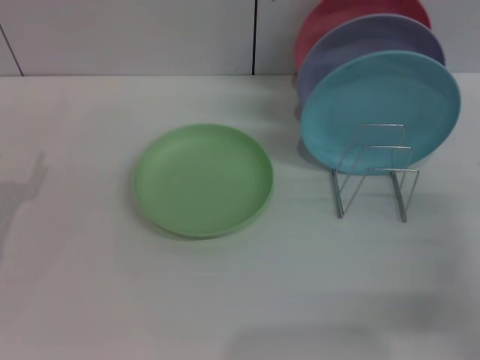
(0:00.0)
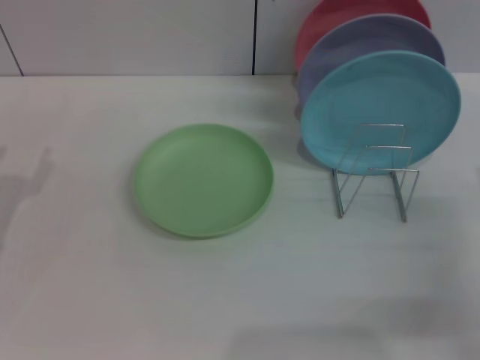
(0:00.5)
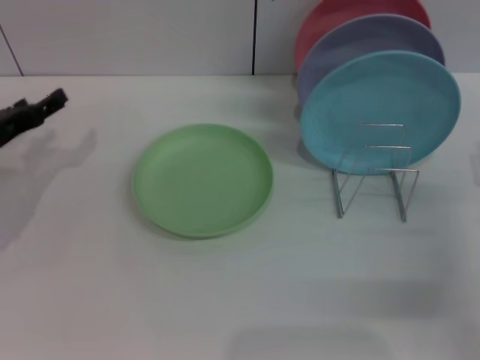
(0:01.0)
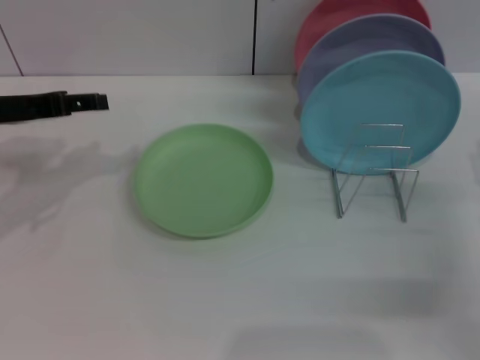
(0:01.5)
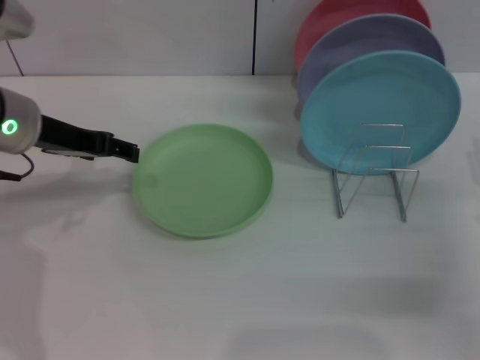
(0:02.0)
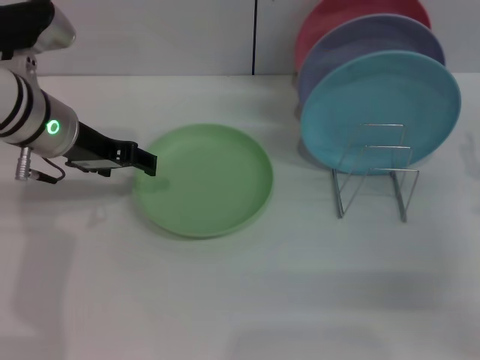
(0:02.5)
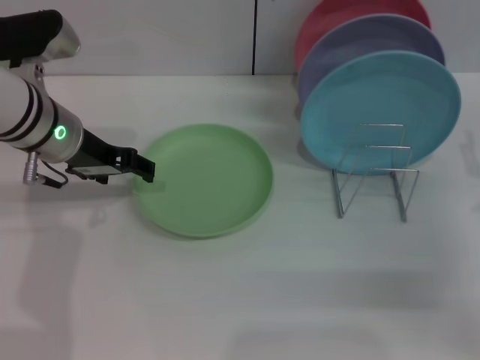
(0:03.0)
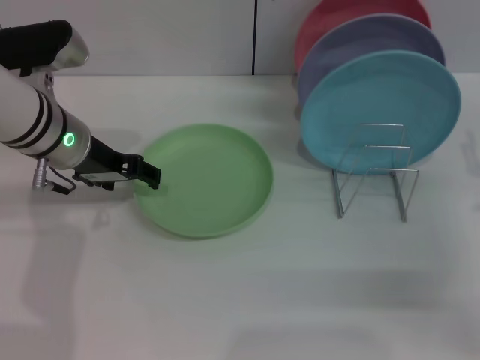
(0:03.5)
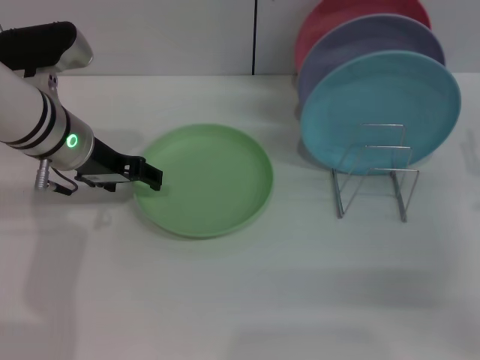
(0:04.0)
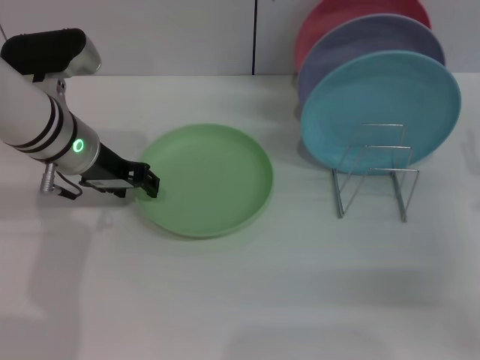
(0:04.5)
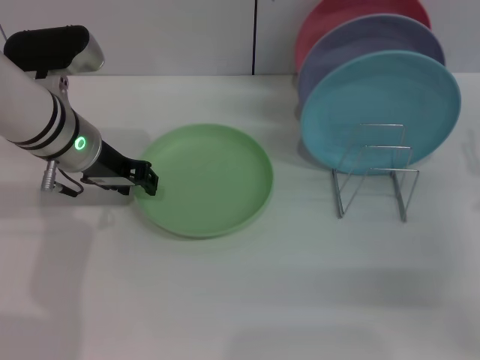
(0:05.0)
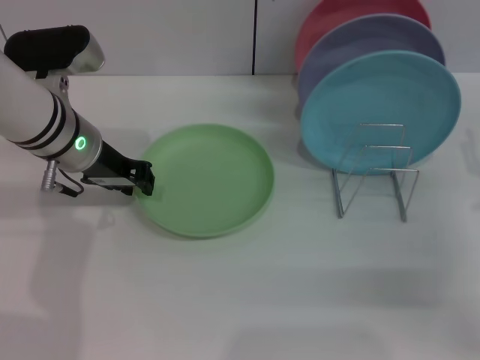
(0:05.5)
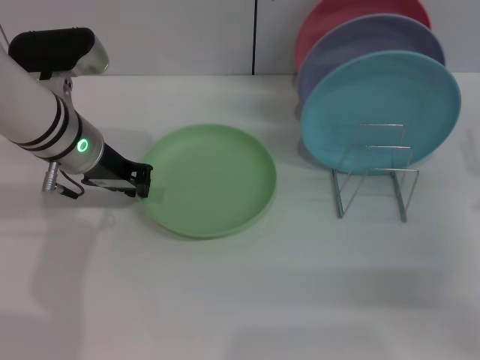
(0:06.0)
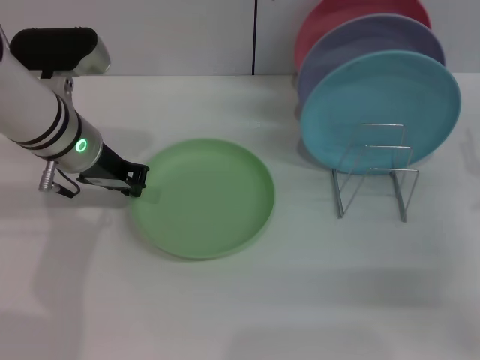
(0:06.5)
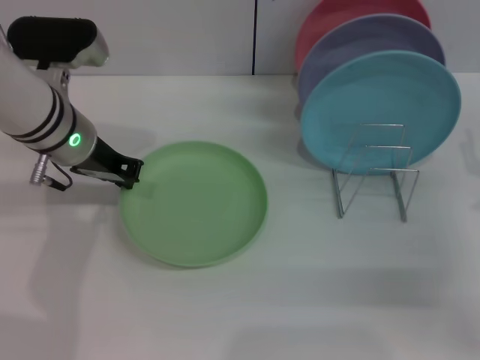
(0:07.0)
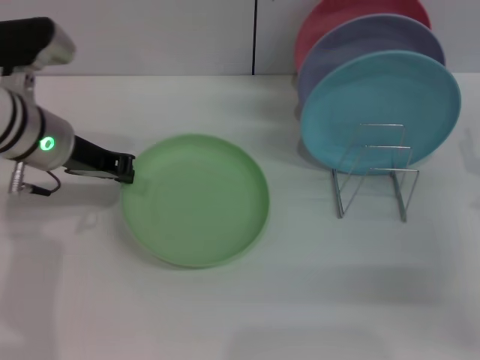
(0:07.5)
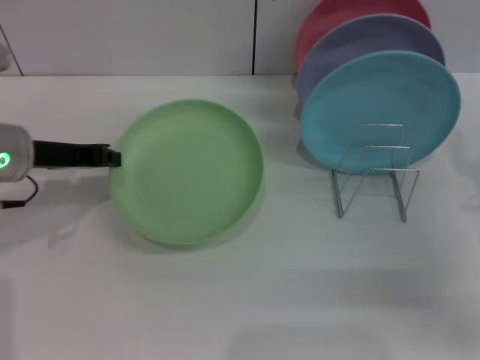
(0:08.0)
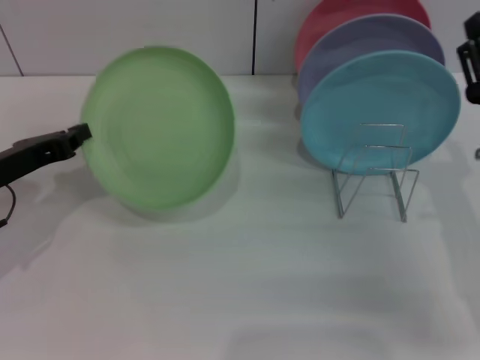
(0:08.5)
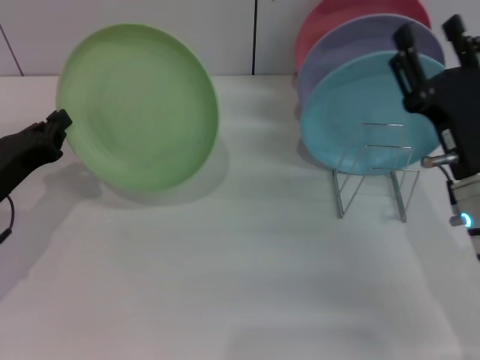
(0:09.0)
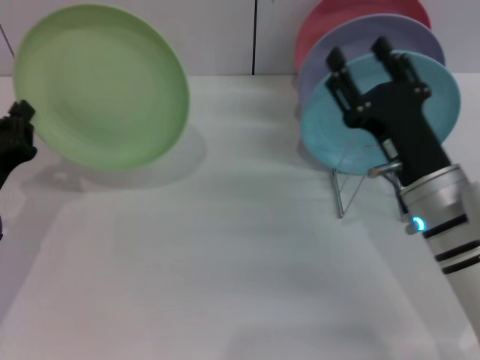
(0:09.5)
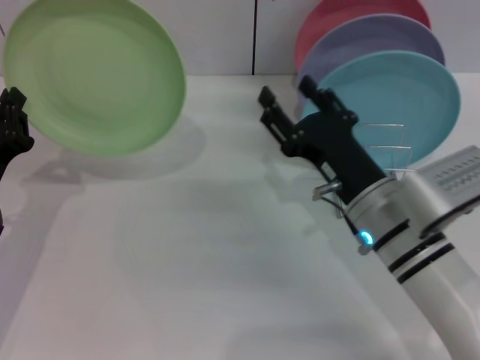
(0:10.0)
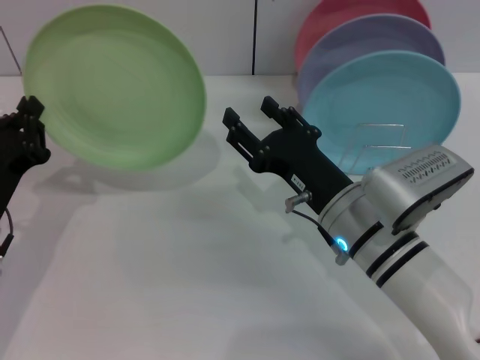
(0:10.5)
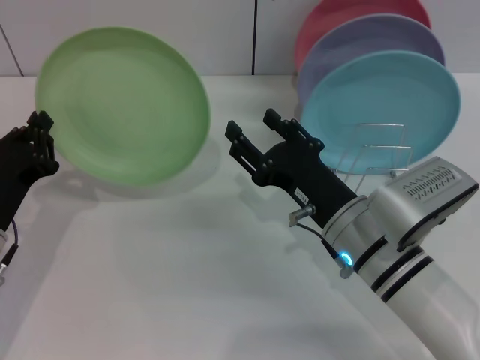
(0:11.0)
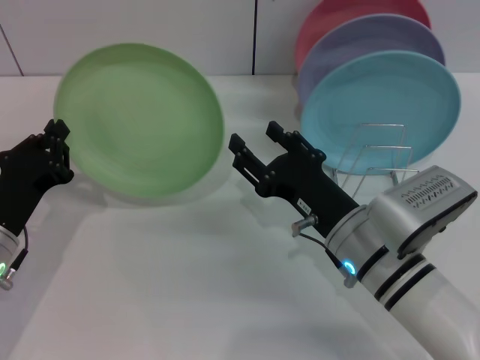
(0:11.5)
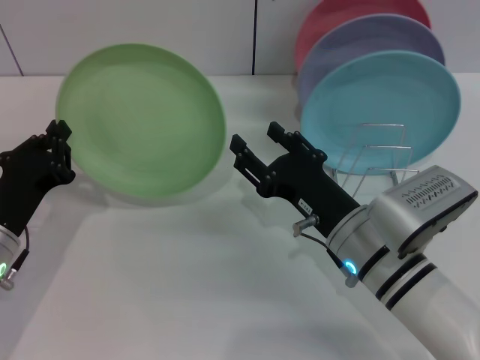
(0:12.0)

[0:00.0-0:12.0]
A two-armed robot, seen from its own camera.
Task of the whole recording: Grip the plate with one hand, pass it to the other, then set it on the shelf.
Step, 0:00.0 to 0:09.0: Pick up the plate with the left gripper.
0:00.0 to 0:02.0: The left gripper is displaced upward, forward and to the right by about 20 cm.
0:02.0 to 0:04.0: The left gripper changes place by approximately 5 cm.
0:04.0 to 0:06.0: The left gripper closes.
0:06.0 to 0:08.0: The left gripper travels to the left by about 10 cm.
0:08.0 to 0:10.0: The right gripper travels to the left by about 15 cm, while the left gripper moves downward and backward, some 10 cm.

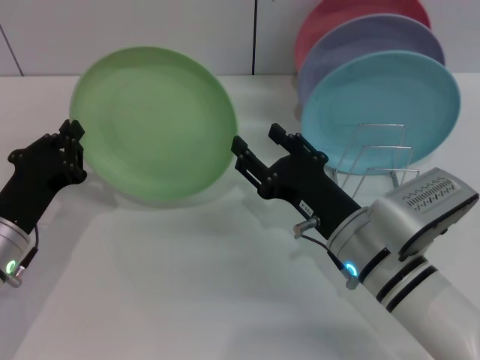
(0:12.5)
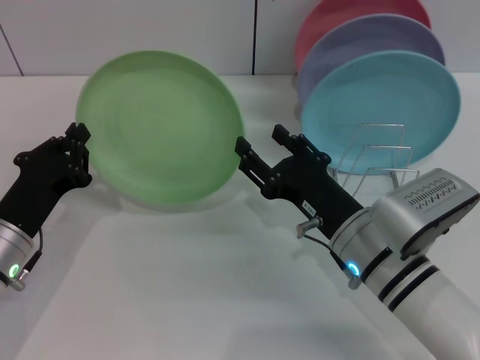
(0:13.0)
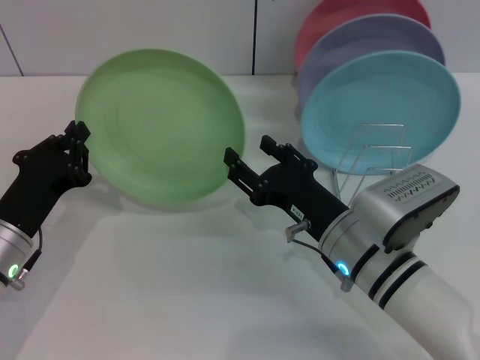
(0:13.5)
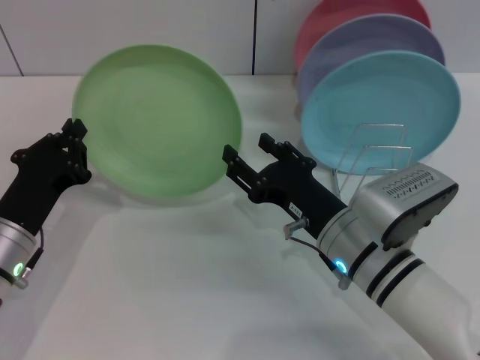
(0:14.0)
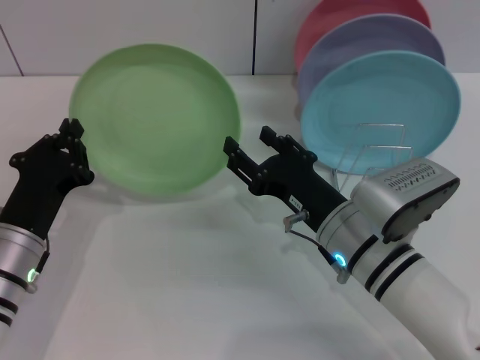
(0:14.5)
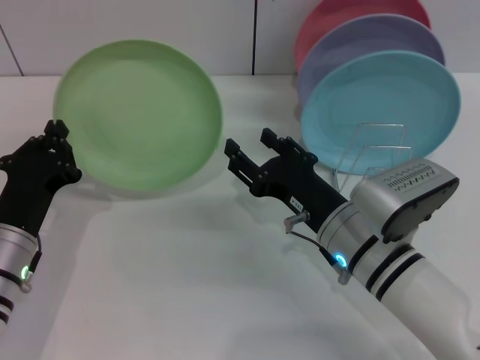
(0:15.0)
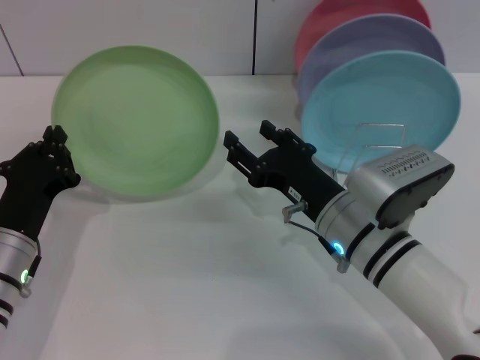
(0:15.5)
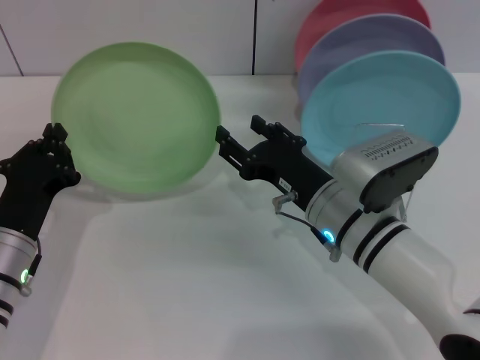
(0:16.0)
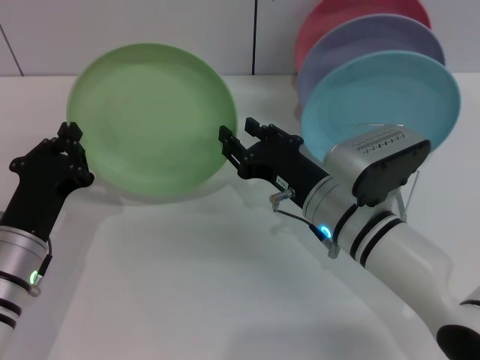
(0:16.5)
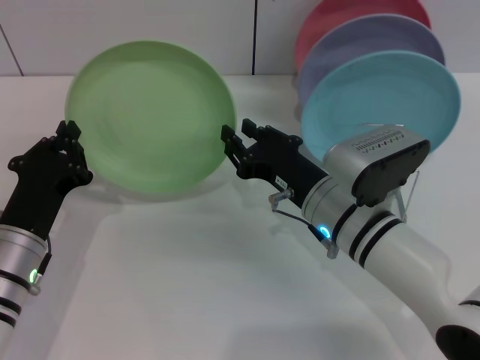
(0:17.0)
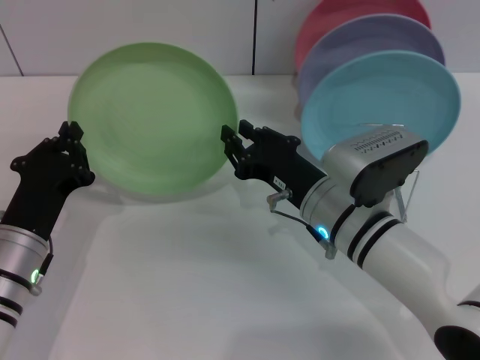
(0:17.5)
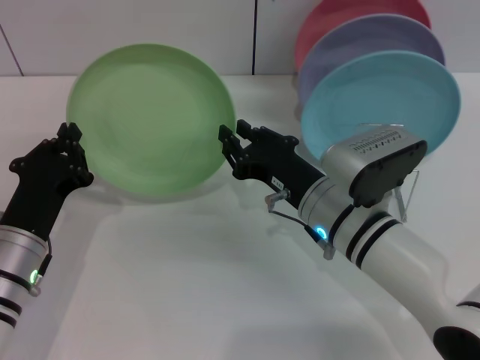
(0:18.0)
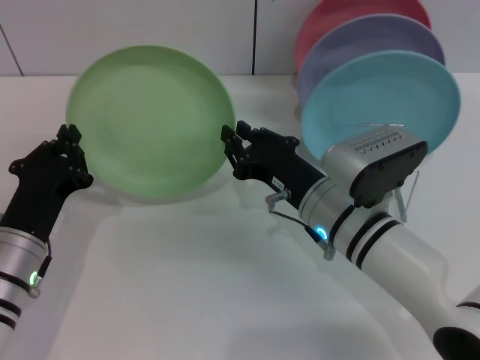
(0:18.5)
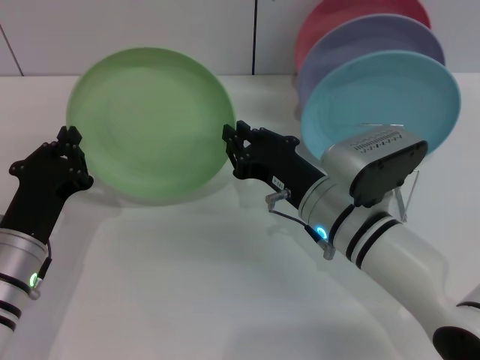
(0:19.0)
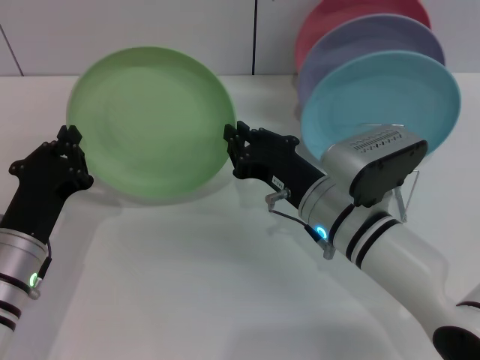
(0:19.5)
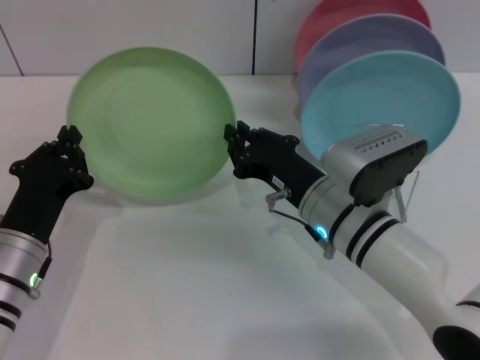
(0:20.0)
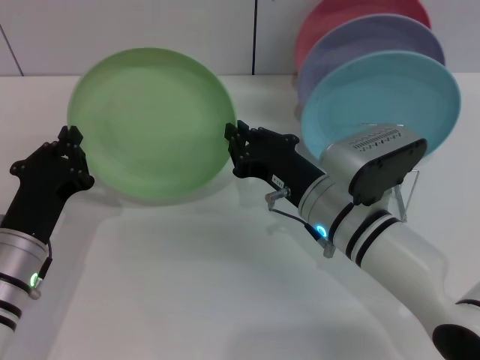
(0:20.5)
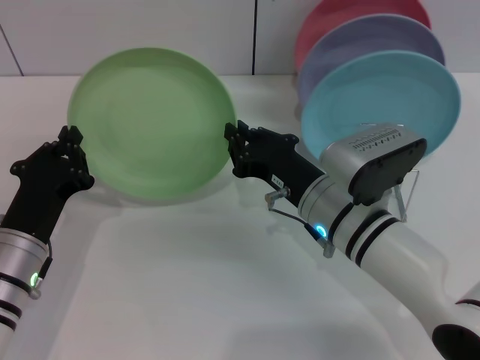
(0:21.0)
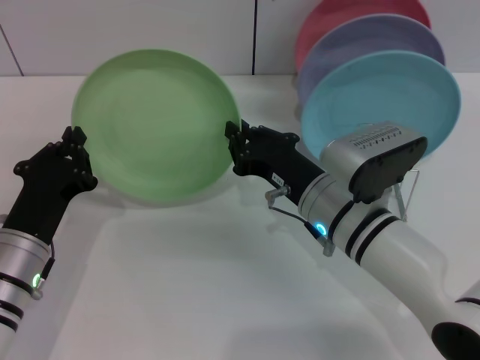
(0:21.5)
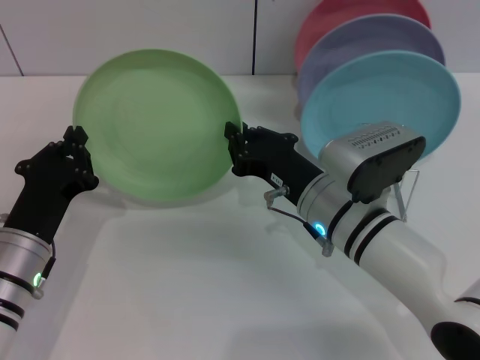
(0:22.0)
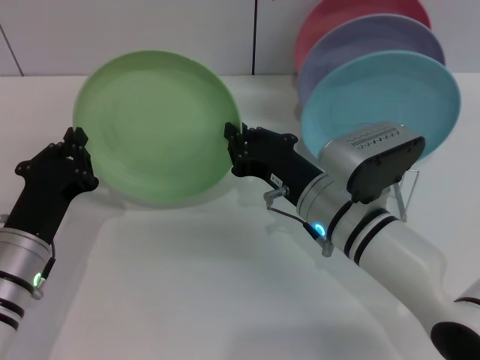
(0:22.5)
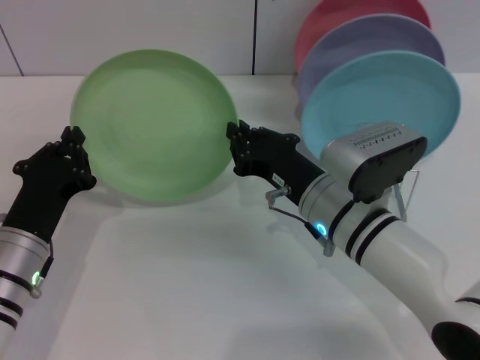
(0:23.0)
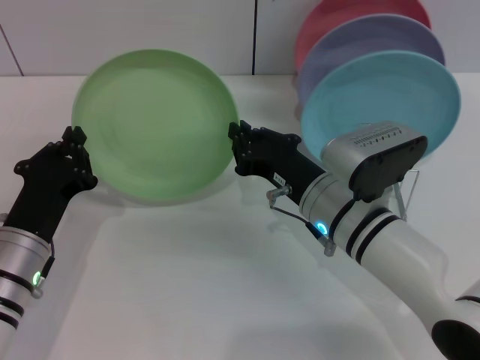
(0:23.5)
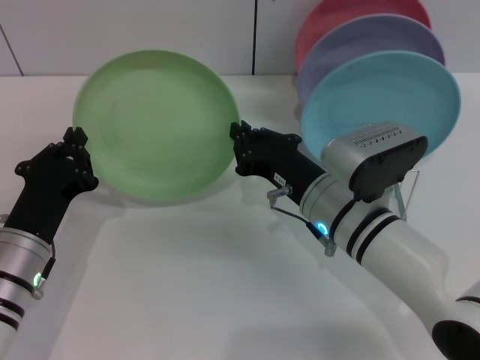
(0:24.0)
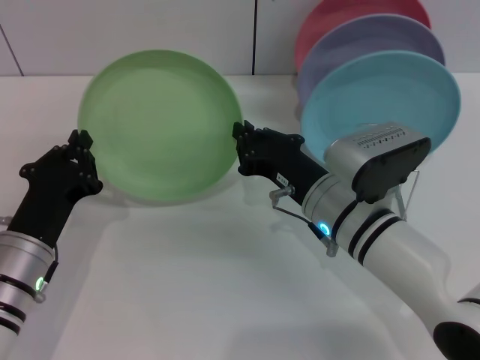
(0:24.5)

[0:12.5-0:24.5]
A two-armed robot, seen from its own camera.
Task of the whole recording: Grip the plate with one hand, pass it to the other, then set it on the shelf.
0:12.5 to 0:16.5: The grippers stay close to where they were, moving slightly.
0:16.5 to 0:18.5: The right gripper closes up.
0:18.5 to 0:24.5: Both grippers stay about where they are.

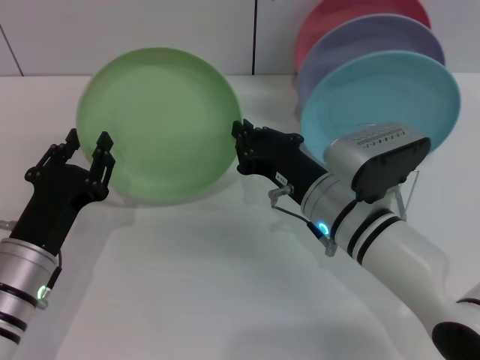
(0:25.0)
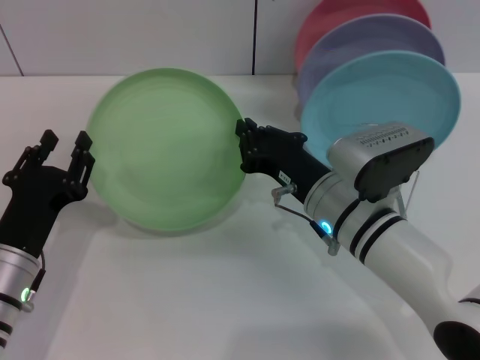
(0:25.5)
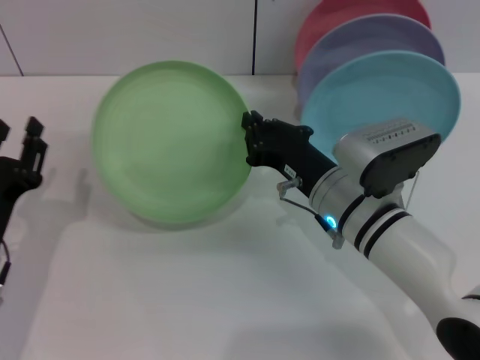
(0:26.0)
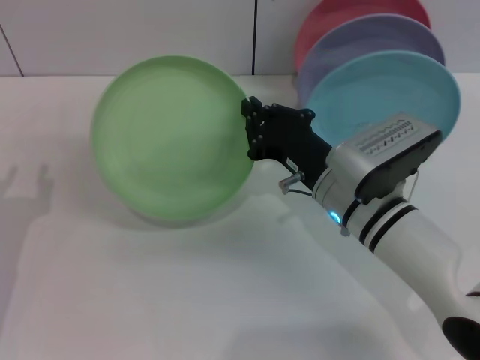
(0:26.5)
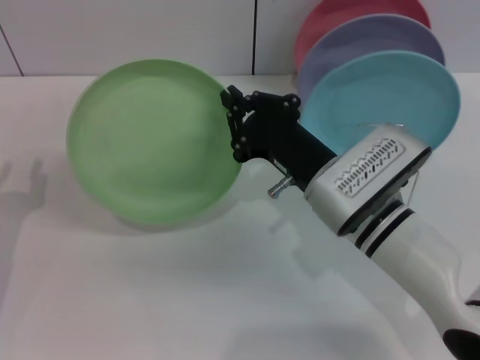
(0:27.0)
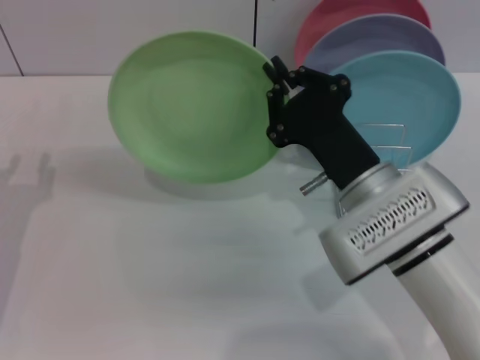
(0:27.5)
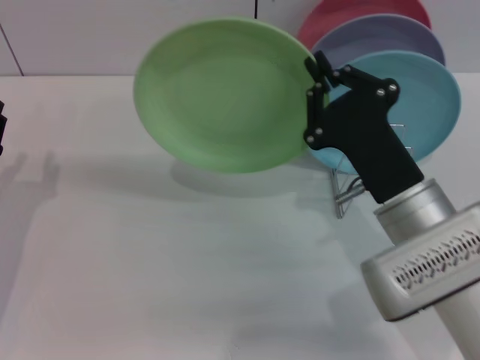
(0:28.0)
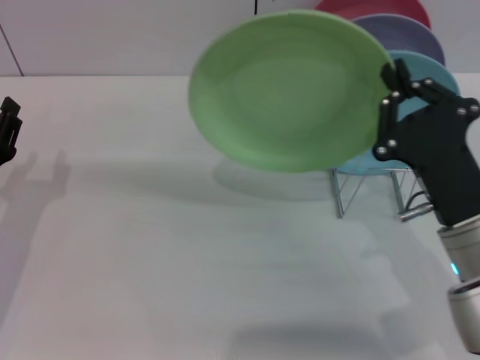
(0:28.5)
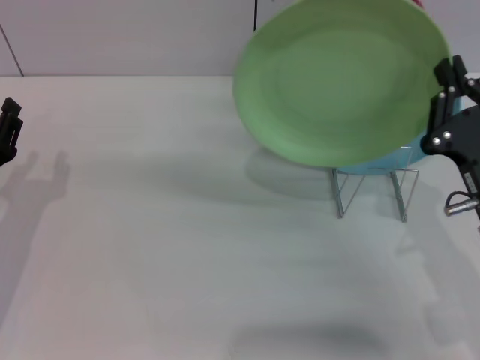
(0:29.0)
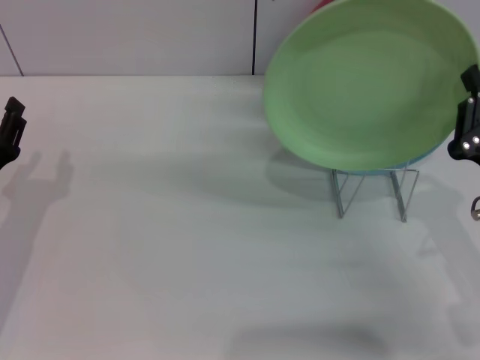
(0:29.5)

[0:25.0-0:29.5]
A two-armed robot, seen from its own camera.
Task of the whole recording: Grip the plate with one hand, pass it to the other, then set it on the shelf.
0:25.0 to 0:27.0: The left gripper goes roughly 10 cm to the left.
0:27.0 to 0:29.5: The right gripper heads to the right and backward, covering about 15 cm.
